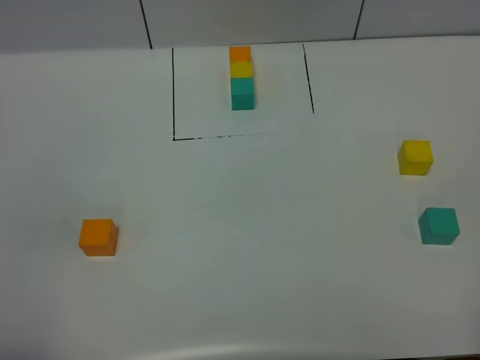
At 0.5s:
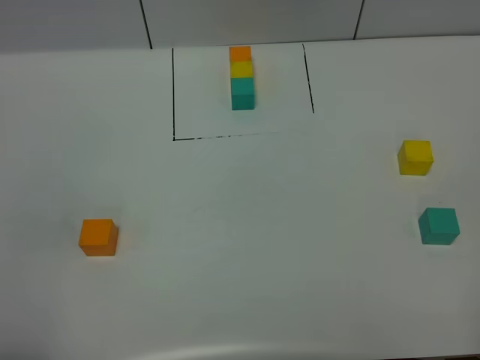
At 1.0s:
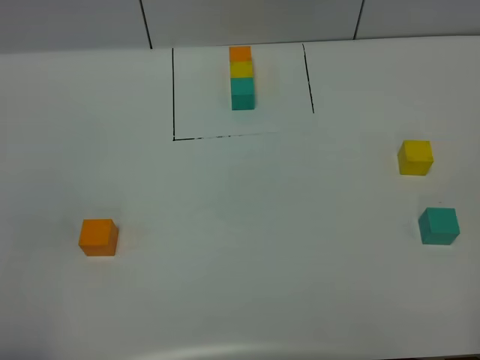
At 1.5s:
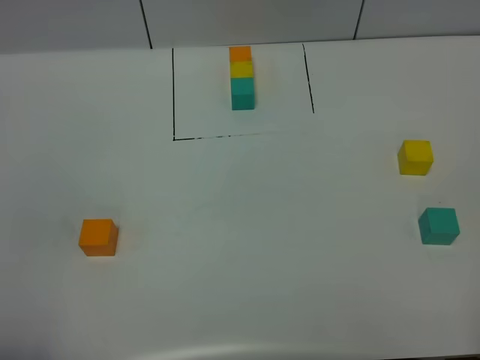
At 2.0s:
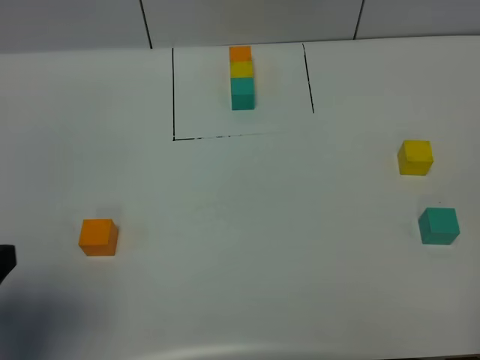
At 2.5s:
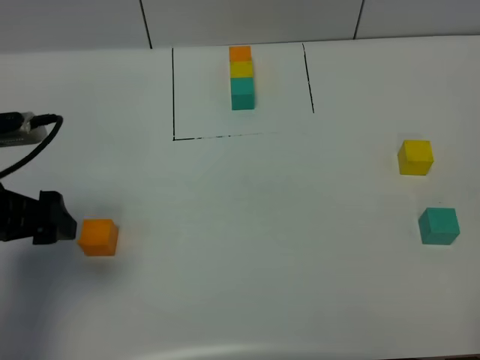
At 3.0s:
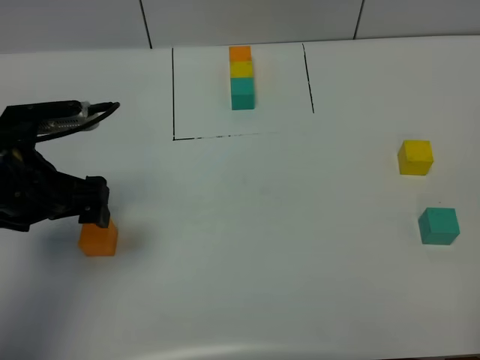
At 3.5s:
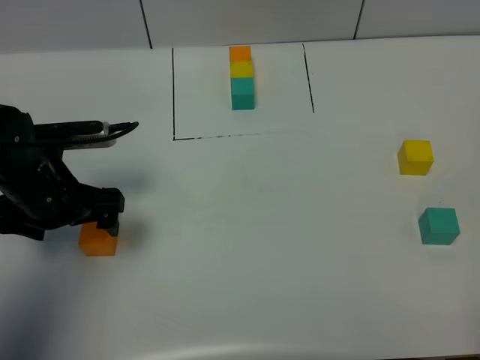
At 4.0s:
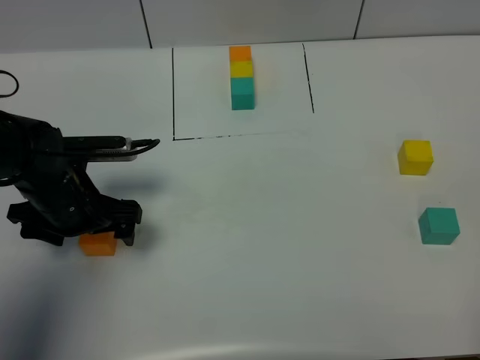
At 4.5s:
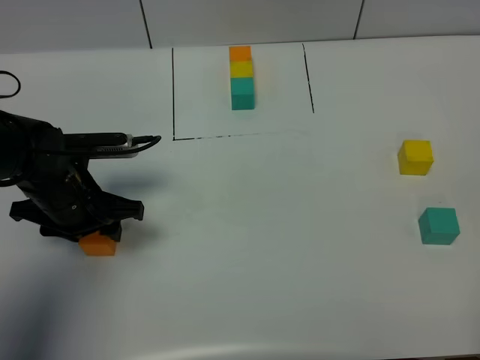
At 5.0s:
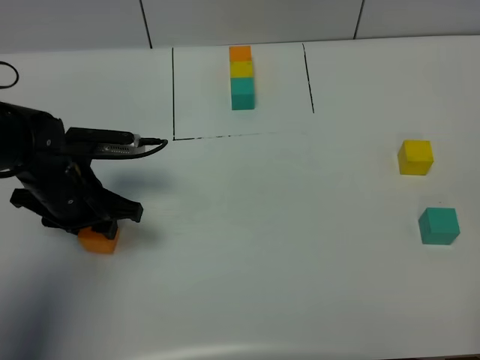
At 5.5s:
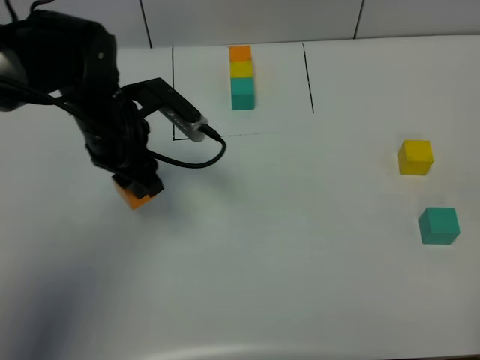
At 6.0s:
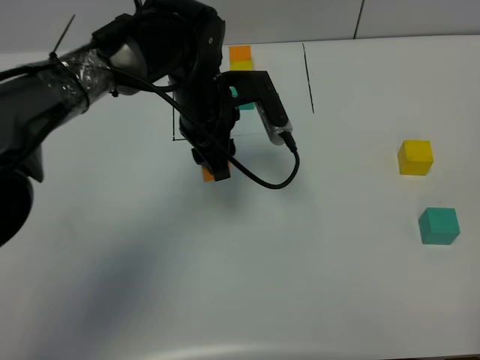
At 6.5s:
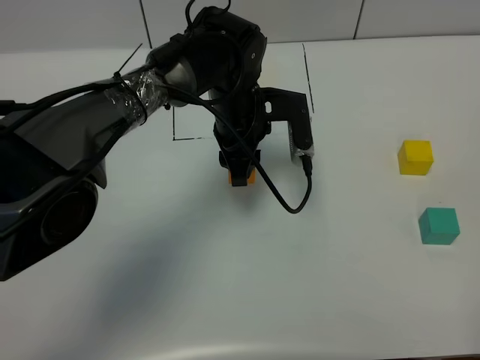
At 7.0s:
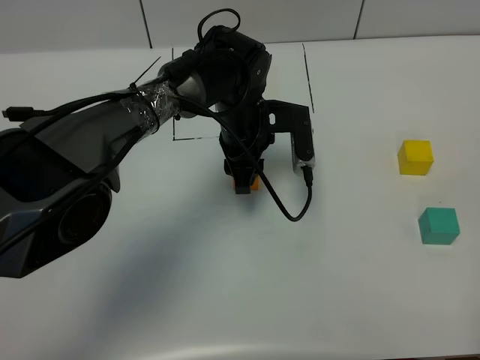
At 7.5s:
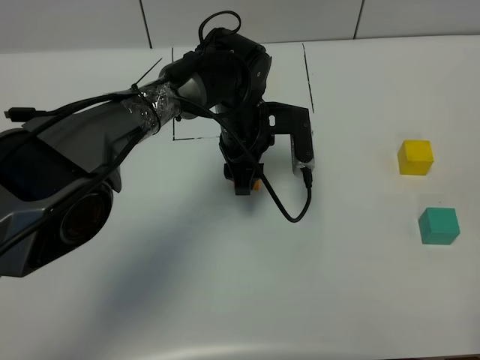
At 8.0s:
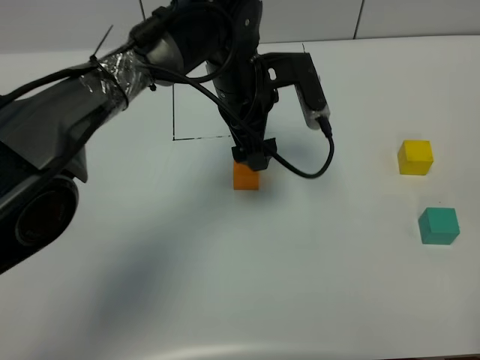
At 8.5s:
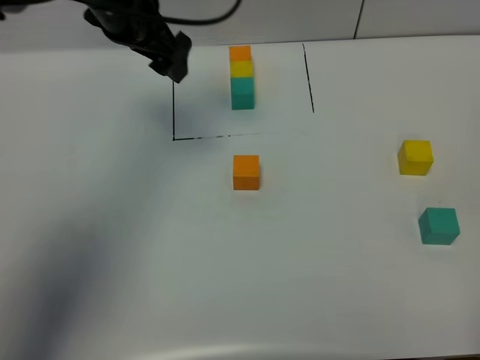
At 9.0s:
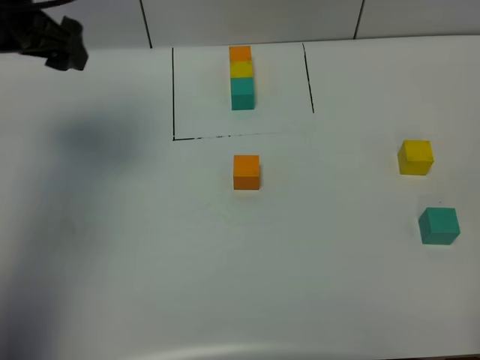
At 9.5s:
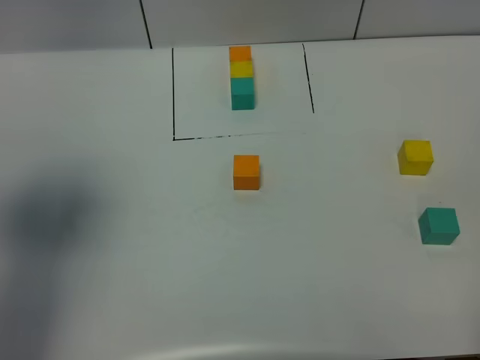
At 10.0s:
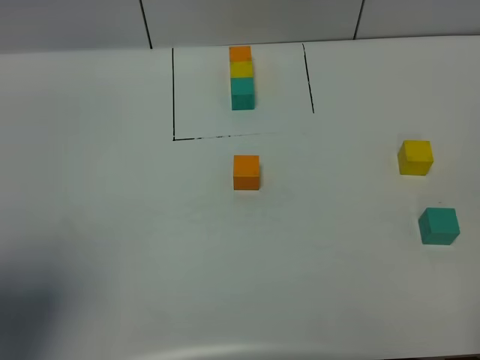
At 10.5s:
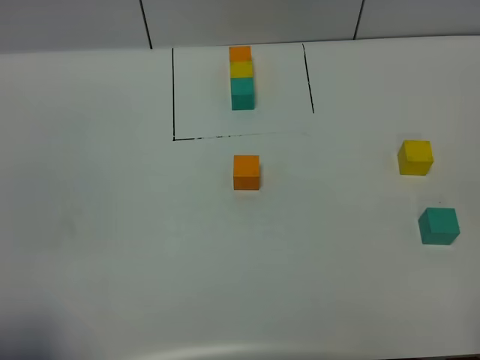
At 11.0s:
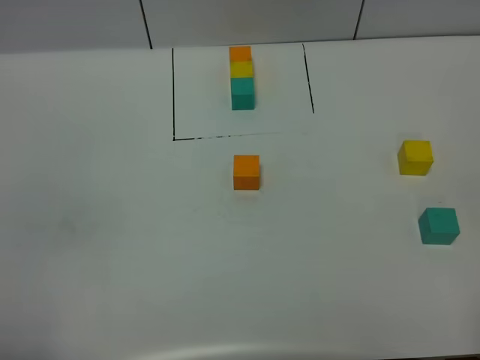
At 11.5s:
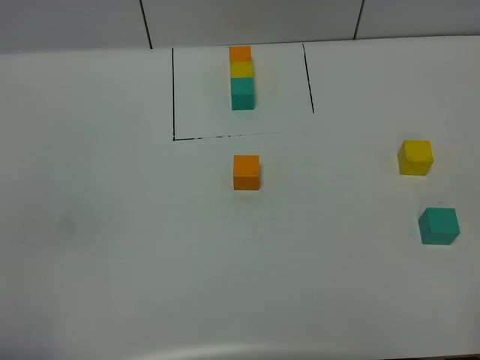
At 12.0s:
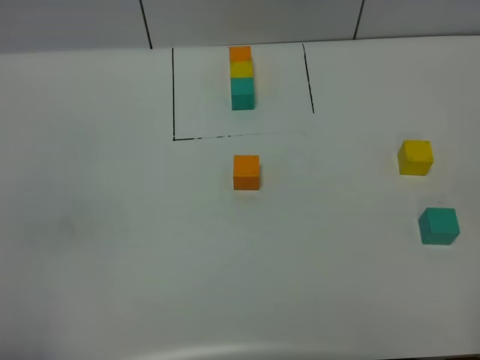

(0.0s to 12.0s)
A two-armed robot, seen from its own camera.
Task of the whole recording: According to the building block template in front, assemble the scattered blocks together.
Step, 2.0s - 7.5s: Put the orange cube in the center of the table.
0.0s - 2.0s: The left gripper goes some 10 cm forward, and opens its fingers.
2.0s - 4.0s: The left gripper travels forward and downward by some 25 cm.
4.0s - 6.0s: The left gripper moves to the right and forward, about 20 cm, and closes its fingers.
6.0s - 8.0s: The left gripper travels downward and back again, approximately 5 cm each way, and opens.
8.0s - 10.0s: The left gripper travels backward, to the left and upward by roughly 40 cm.
10.0s - 12.0s: The left gripper is displaced backward and downward by roughly 15 cm, and closes up.

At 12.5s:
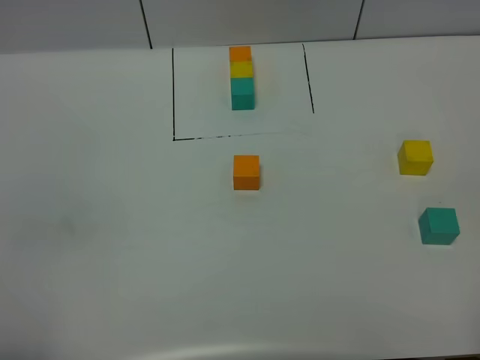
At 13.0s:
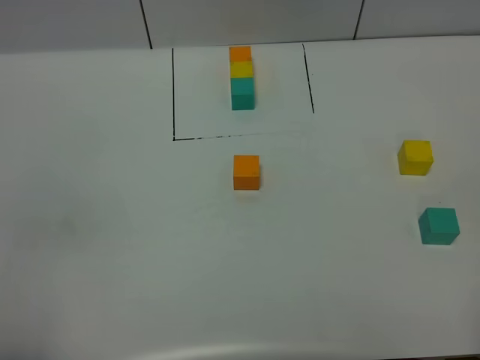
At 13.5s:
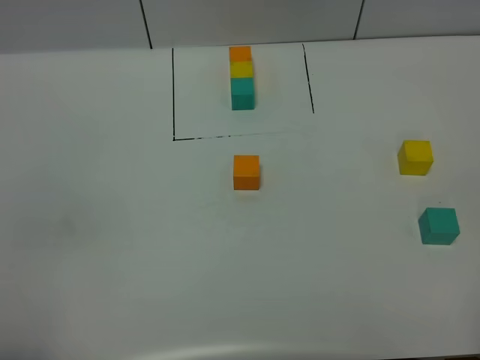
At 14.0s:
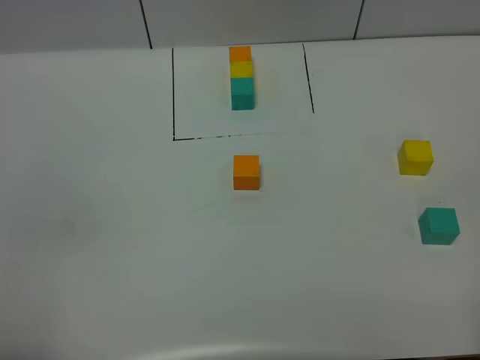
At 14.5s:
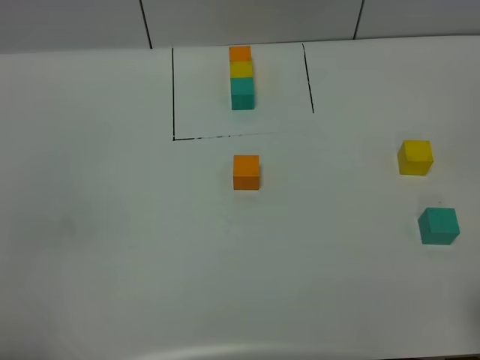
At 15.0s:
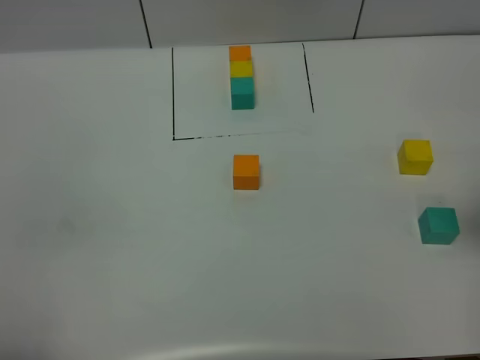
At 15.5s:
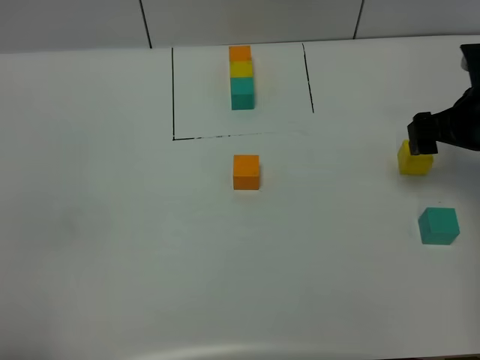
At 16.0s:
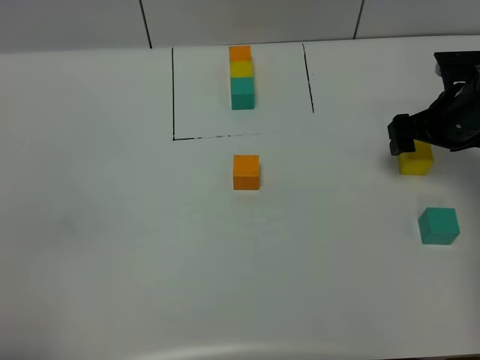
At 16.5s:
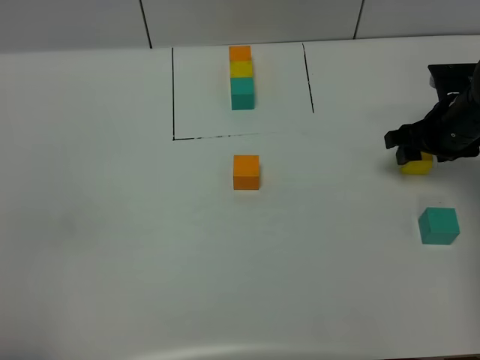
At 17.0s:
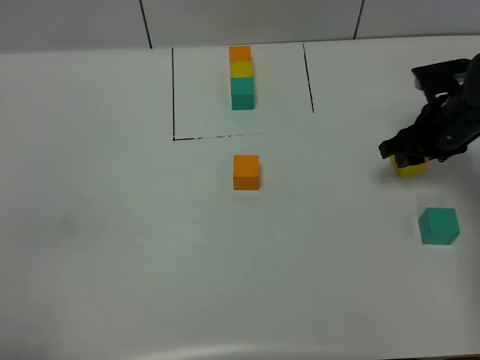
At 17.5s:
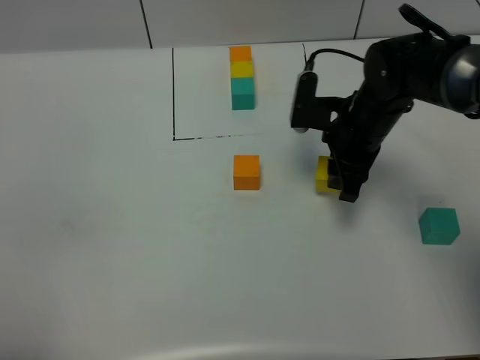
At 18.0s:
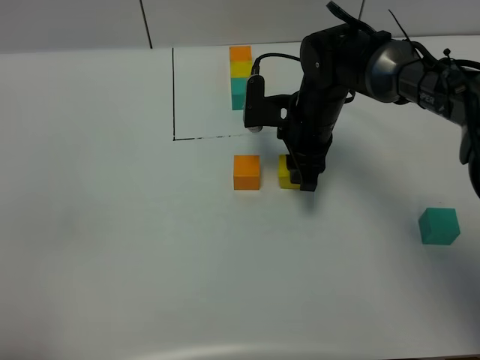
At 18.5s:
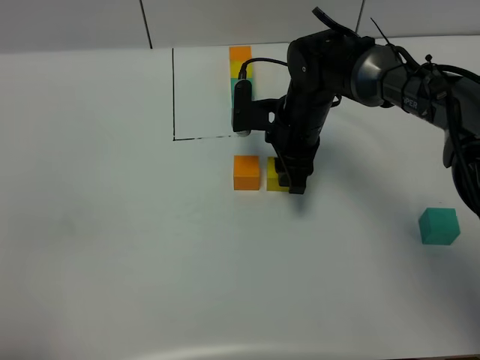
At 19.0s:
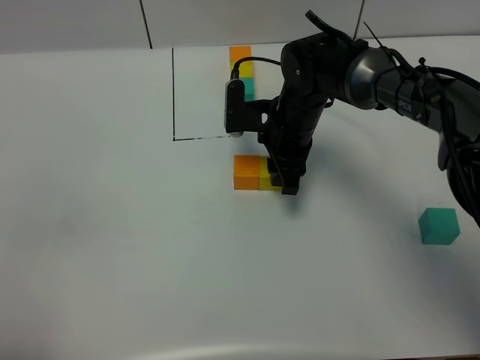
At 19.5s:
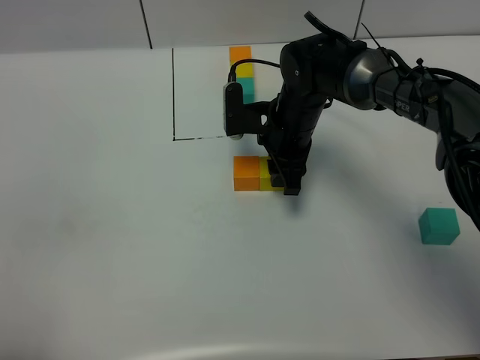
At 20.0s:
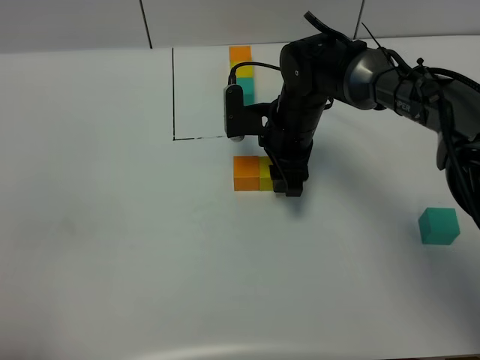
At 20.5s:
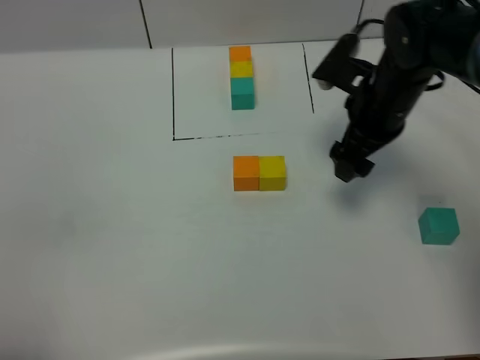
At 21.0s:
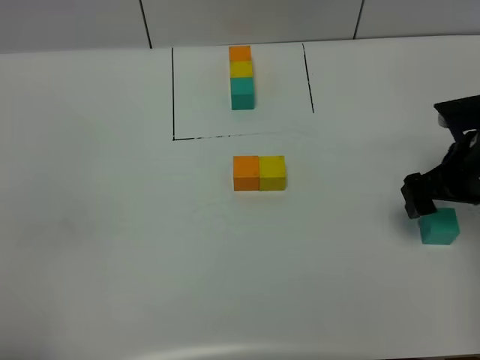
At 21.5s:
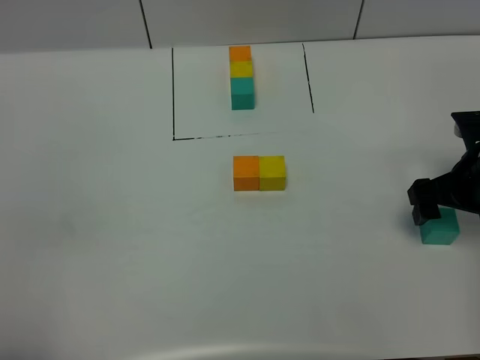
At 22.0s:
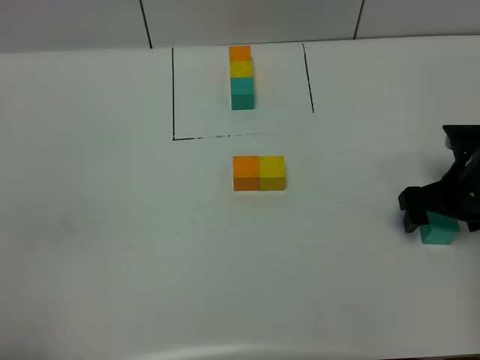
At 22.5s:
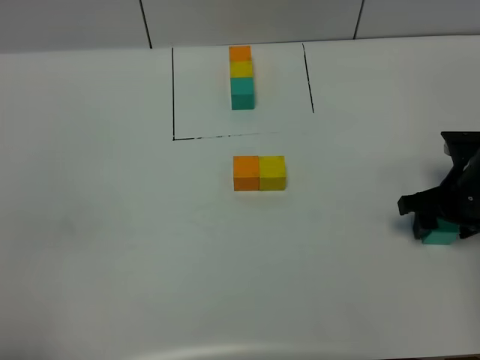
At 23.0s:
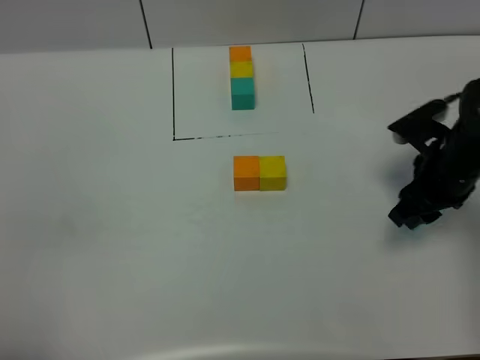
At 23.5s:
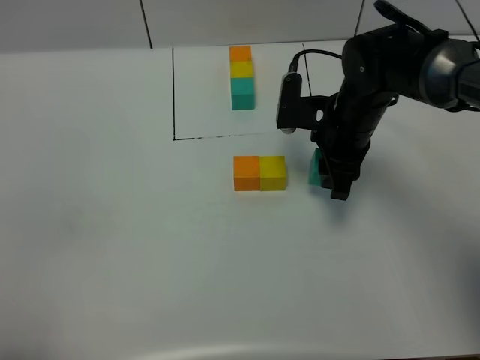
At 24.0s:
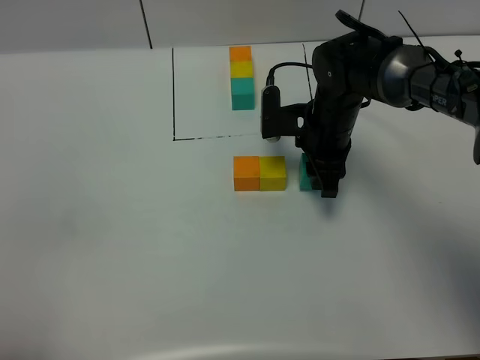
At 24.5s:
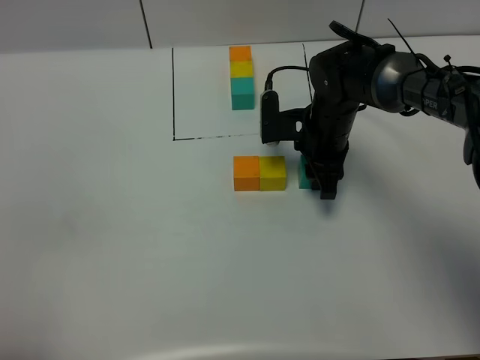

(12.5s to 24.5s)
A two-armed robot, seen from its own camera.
Task of the whole recording: According to the building block template in front, assemble the scattered blocks together.
Step, 12.5s - 20.0s: Put the yellow cube on the right of the orange cube.
14.5s - 16.5s: The right gripper travels forward and downward by about 35 cm, and closes.
16.5s - 18.5s: The right gripper travels to the left by some 20 cm.
18.5s - 20.5s: The right gripper moves to the right and upward, approximately 15 cm, and opens up.
20.5s - 22.5s: The right gripper is displaced to the right, downward and backward by about 15 cm, and closes.
22.5s - 24.5s: The right gripper is displaced to the left and forward by roughly 20 cm.

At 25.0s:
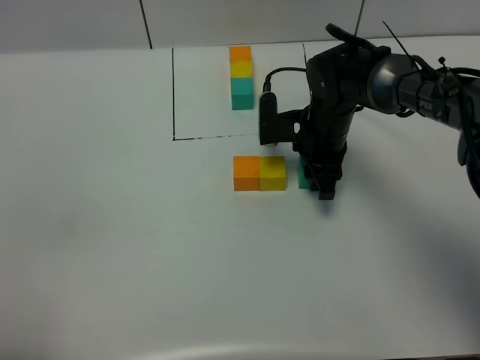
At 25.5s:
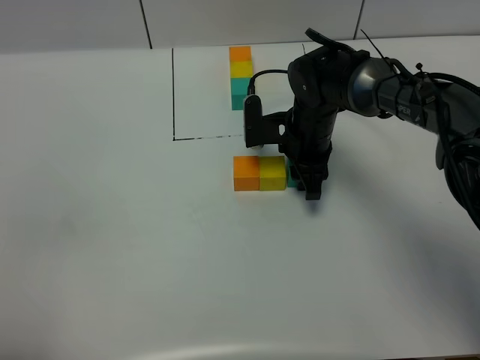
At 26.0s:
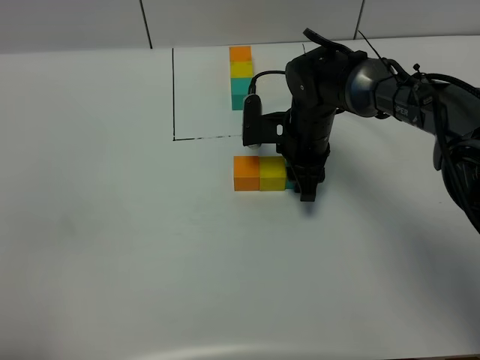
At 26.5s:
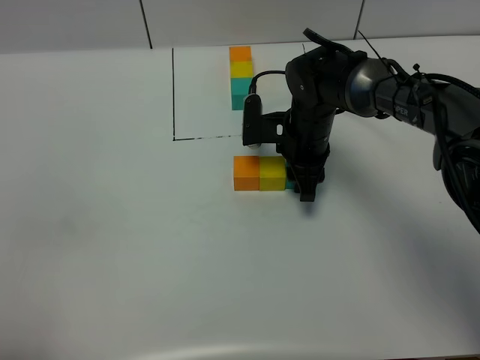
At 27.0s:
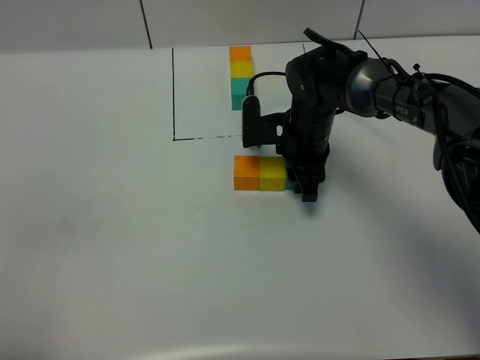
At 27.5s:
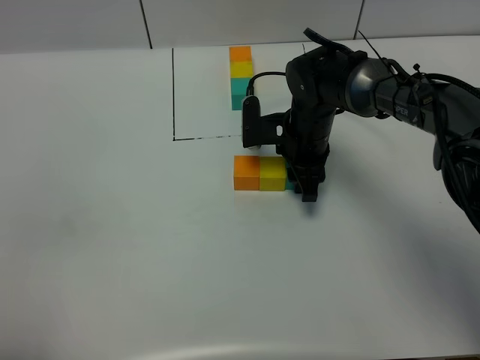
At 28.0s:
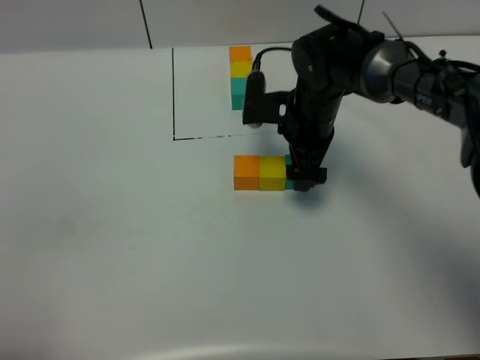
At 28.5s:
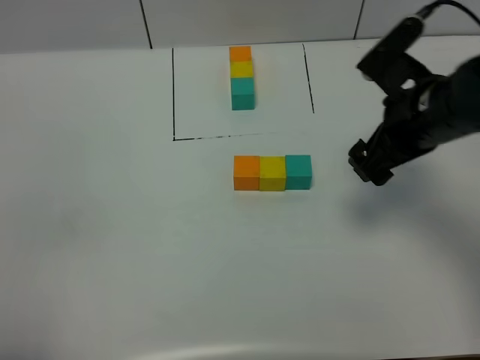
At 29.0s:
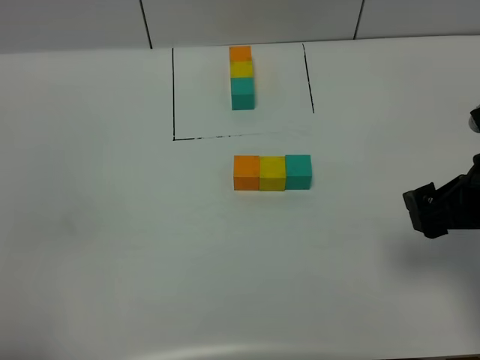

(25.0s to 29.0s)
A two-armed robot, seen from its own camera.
Task of the whole recording: According to the building block template in front, assemble the scattered blocks together.
Step, 25.0s - 27.5s: Put the green cube on the right of the yellow cube.
25.0s - 27.0s: There are only small adjustments of the grippers.
27.0s - 29.0s: The right gripper is displaced backward, to the right and upward by about 30 cm, and opens up.
